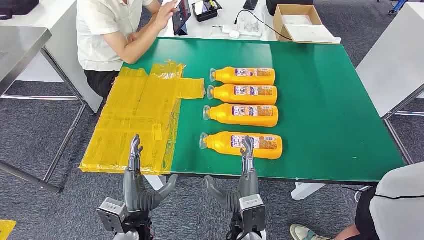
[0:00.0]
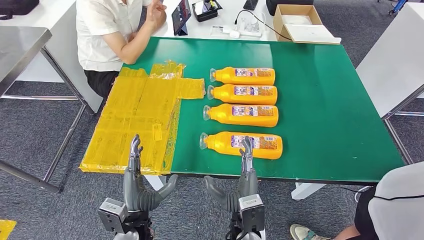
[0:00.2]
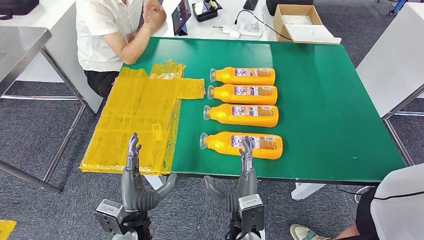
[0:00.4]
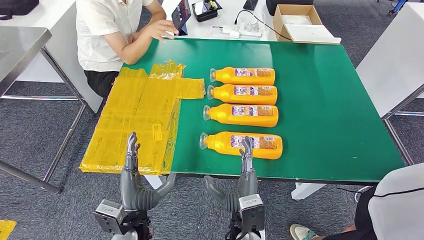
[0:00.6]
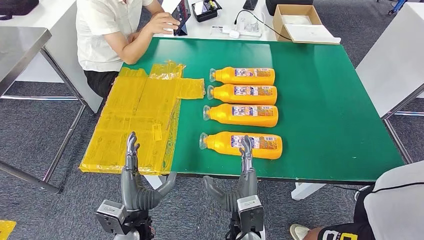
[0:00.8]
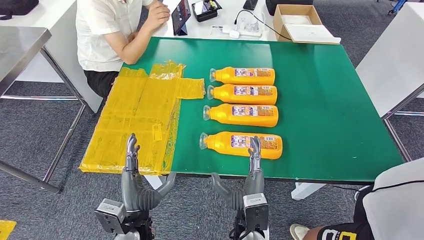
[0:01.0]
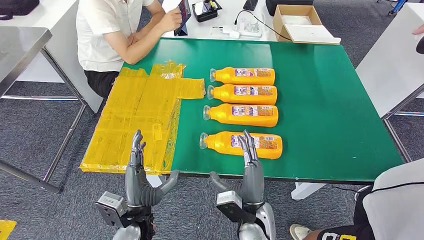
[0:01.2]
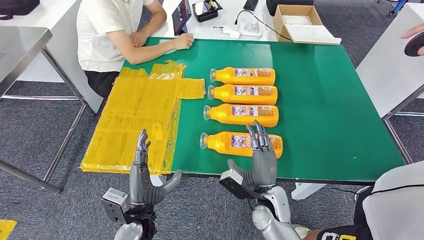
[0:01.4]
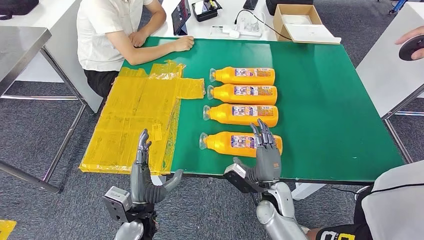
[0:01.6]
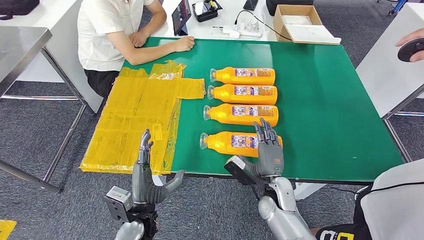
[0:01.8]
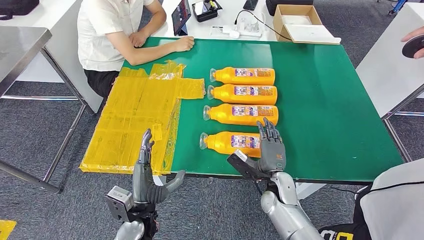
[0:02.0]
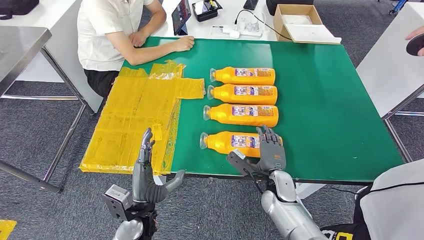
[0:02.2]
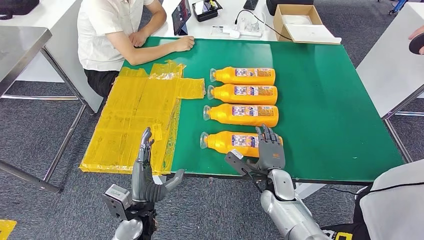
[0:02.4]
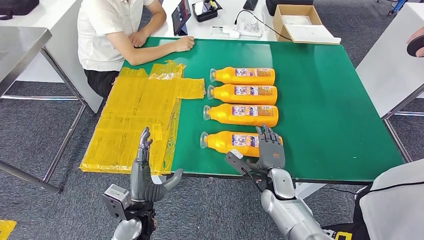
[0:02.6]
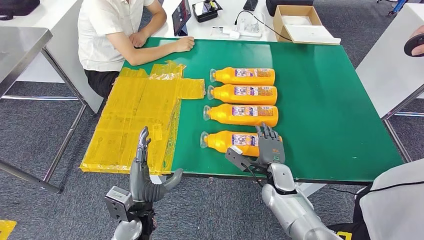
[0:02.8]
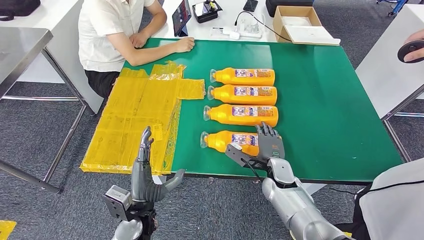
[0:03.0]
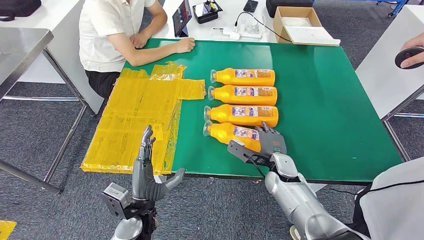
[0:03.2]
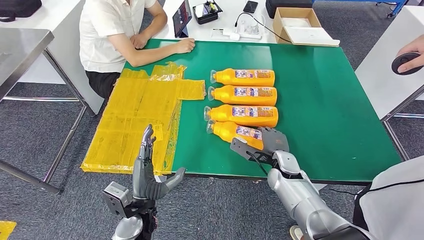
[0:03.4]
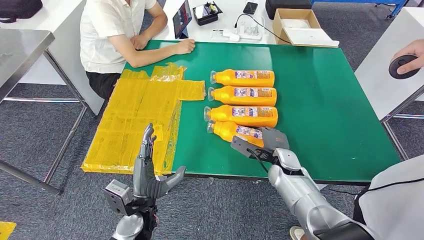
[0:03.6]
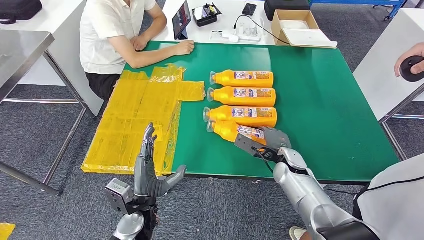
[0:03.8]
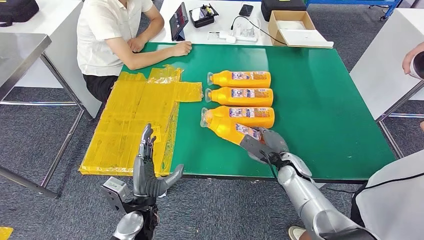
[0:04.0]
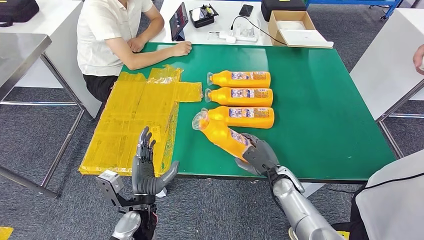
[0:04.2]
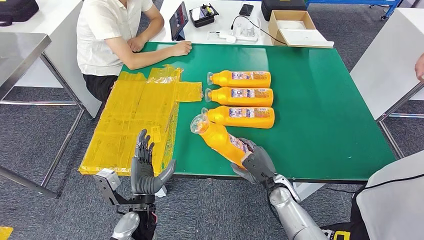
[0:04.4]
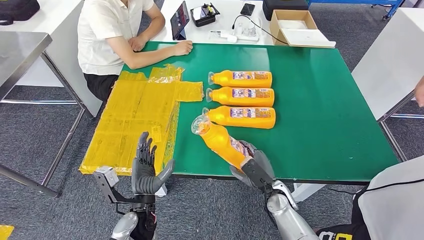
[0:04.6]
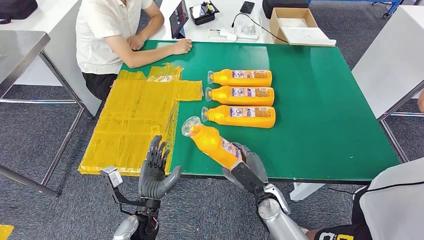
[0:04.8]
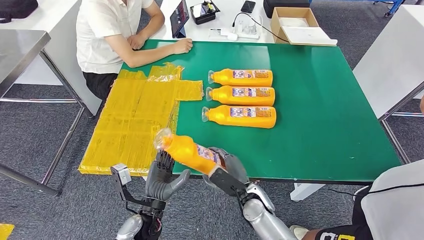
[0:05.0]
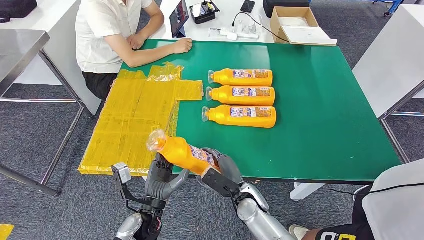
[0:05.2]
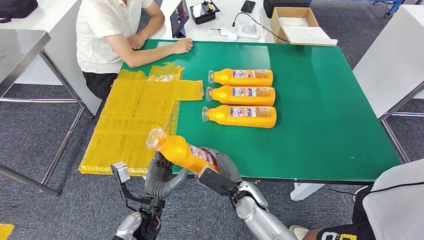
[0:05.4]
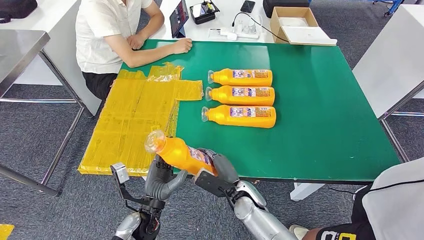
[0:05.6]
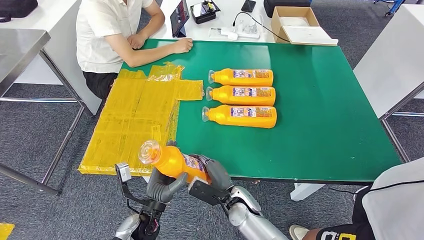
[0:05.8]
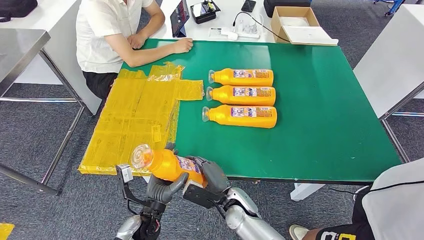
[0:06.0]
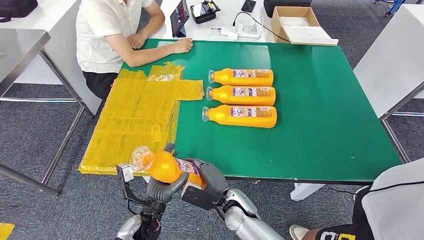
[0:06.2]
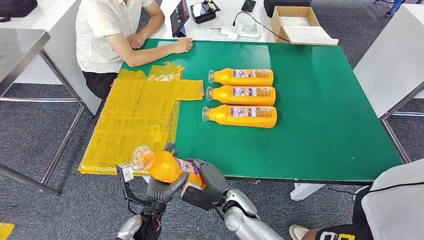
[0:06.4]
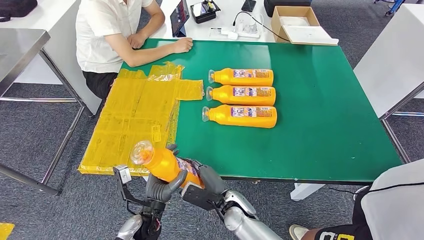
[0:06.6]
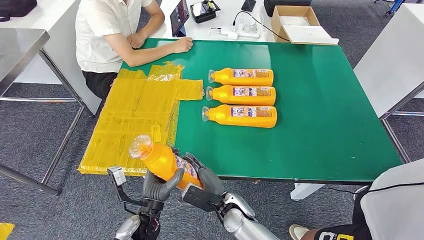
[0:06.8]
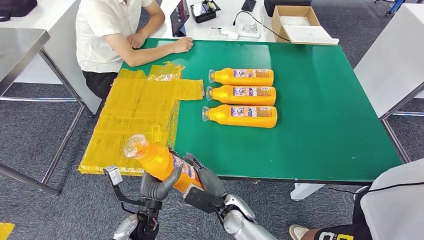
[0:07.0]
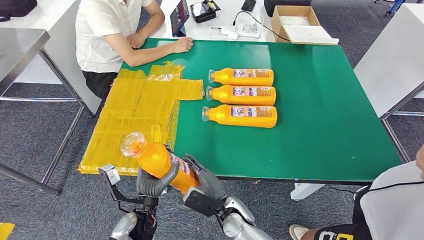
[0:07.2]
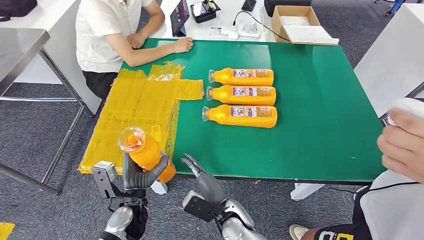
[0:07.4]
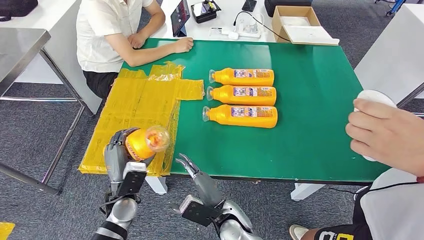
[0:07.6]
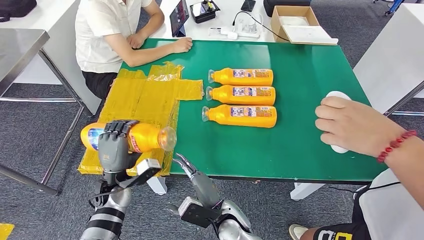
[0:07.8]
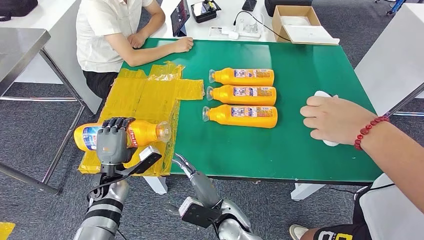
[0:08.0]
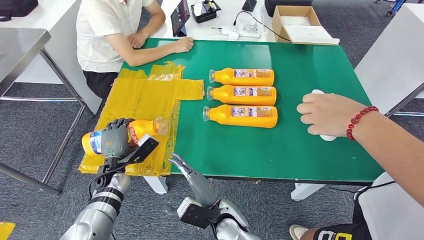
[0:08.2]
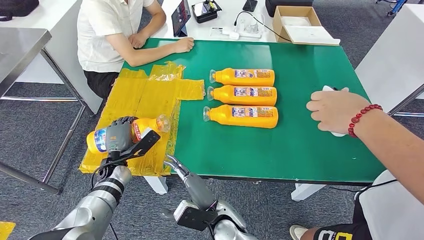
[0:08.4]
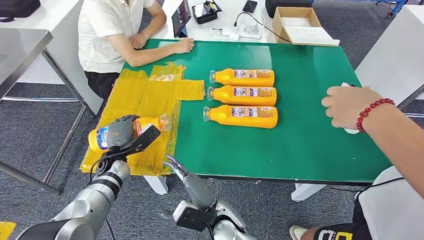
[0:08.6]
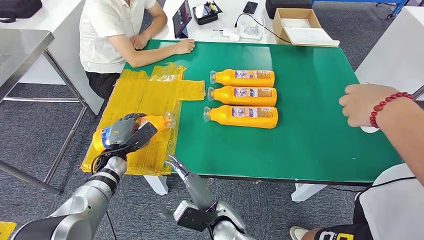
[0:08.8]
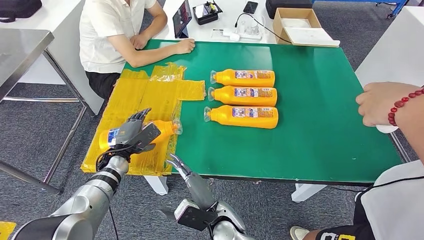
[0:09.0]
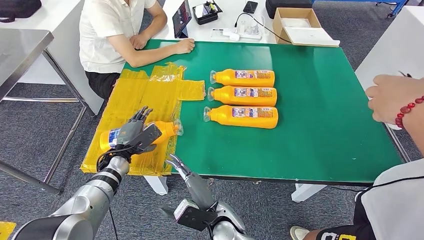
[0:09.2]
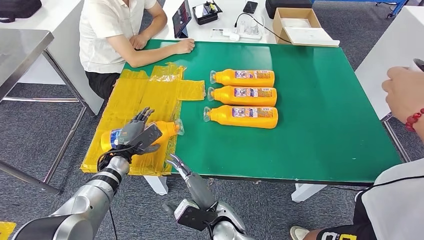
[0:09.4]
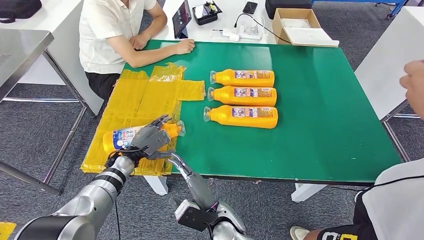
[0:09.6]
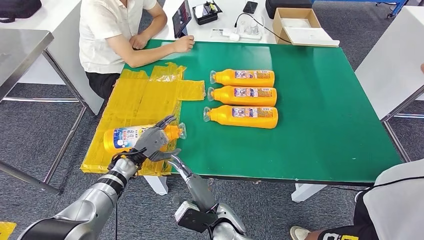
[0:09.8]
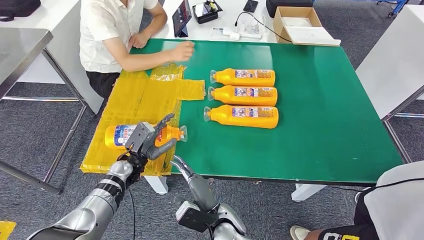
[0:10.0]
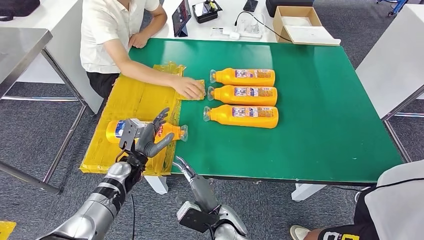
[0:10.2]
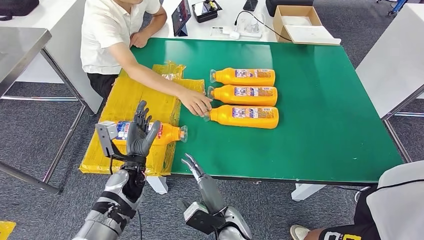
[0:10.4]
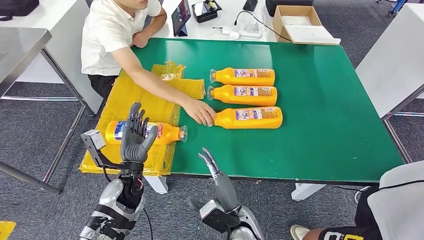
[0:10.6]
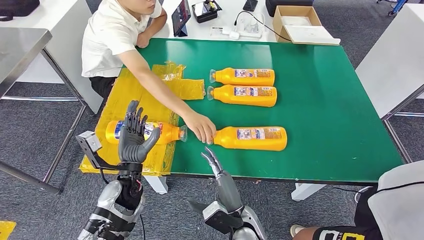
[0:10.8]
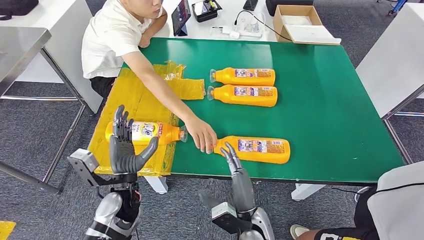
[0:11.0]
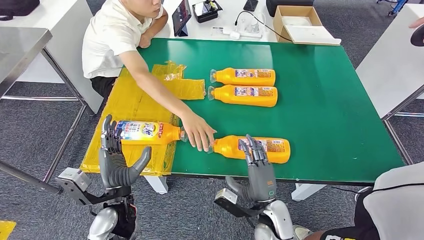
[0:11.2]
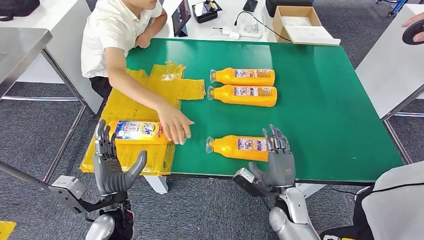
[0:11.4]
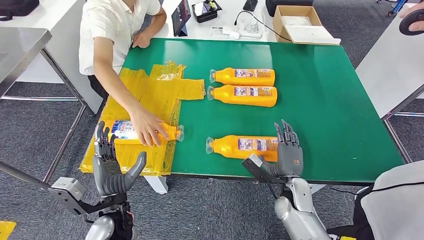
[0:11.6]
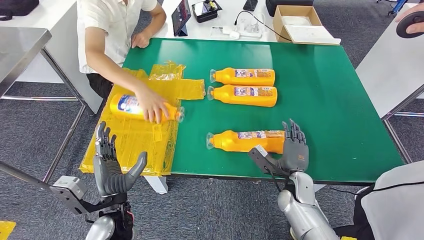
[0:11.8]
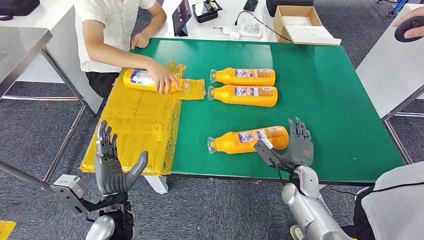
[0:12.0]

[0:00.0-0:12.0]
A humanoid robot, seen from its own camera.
Step, 0:00.0 to 0:04.6: Take the fast-moving consumer goods bottle from the table.
Step, 0:04.8 to 0:10.2: Flip the fast-moving consumer goods bottle to the front side.
0:01.6 to 0:03.0: The right hand shifts about 5 cm forward.
0:06.0 to 0:07.6: The left hand moves to the left, about 5 cm.

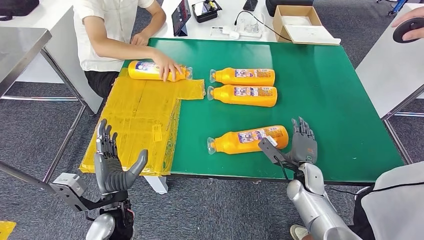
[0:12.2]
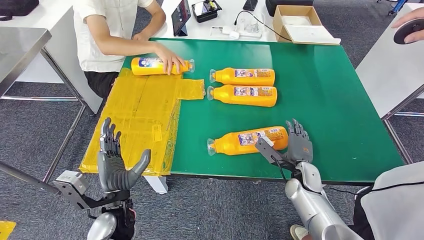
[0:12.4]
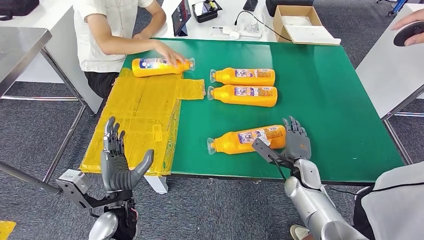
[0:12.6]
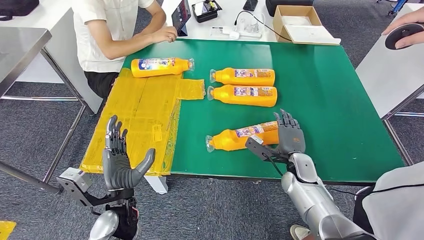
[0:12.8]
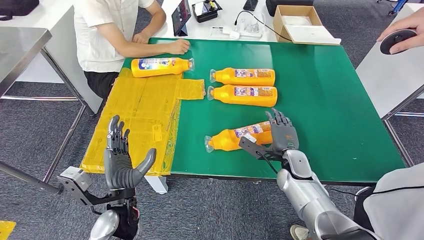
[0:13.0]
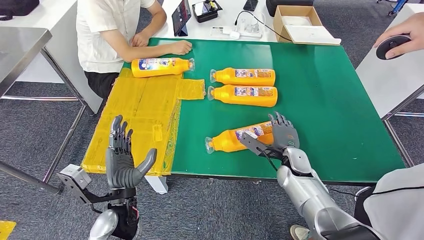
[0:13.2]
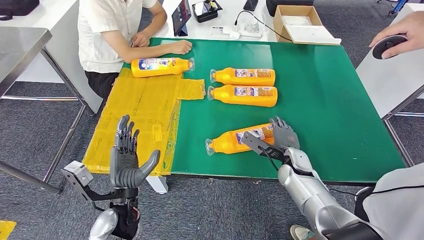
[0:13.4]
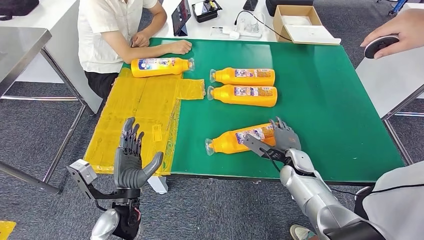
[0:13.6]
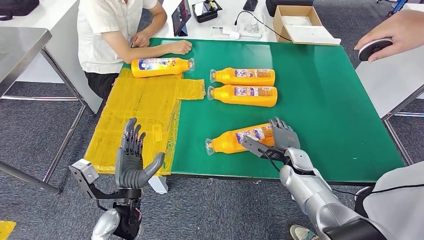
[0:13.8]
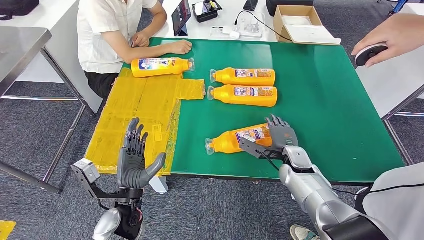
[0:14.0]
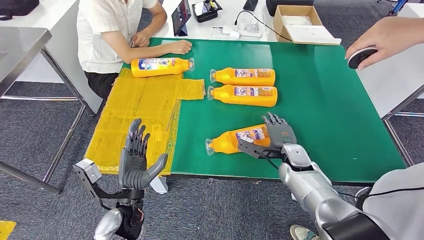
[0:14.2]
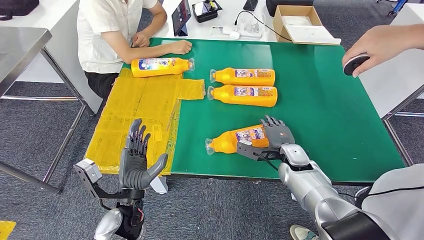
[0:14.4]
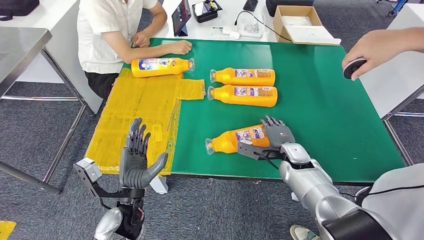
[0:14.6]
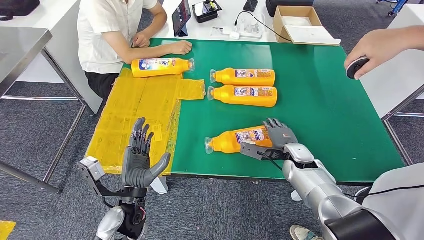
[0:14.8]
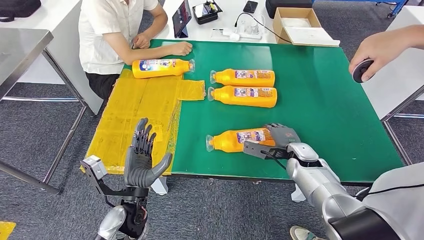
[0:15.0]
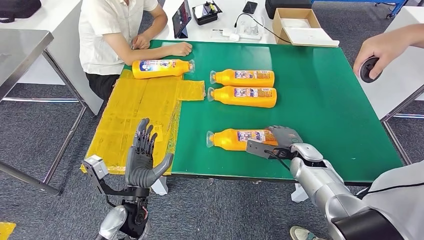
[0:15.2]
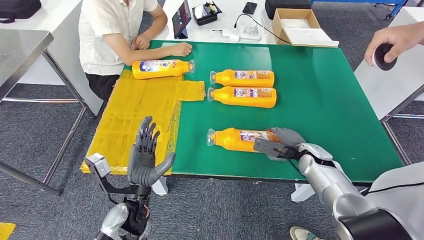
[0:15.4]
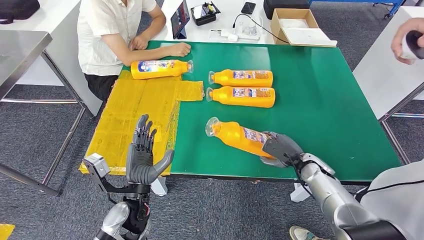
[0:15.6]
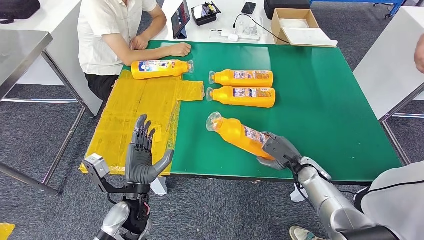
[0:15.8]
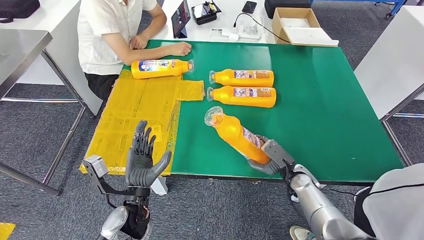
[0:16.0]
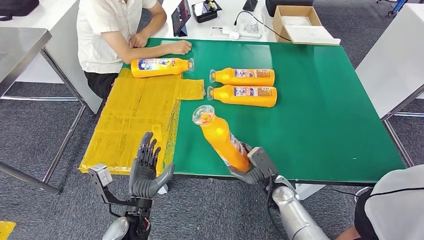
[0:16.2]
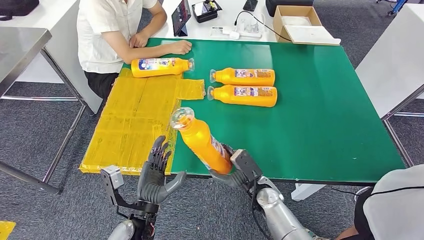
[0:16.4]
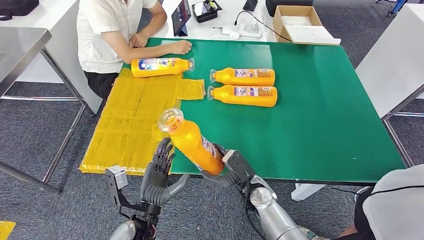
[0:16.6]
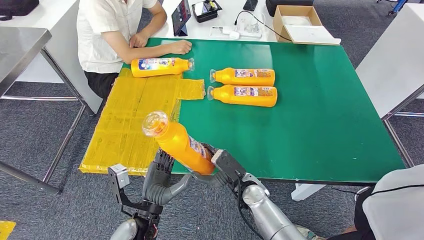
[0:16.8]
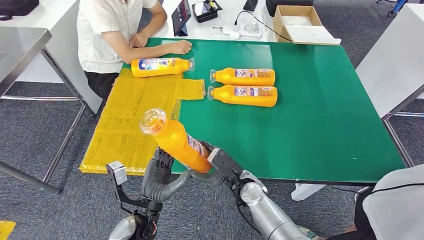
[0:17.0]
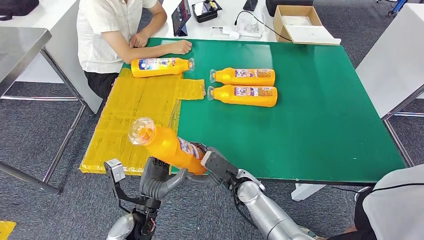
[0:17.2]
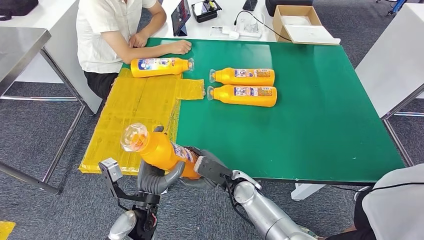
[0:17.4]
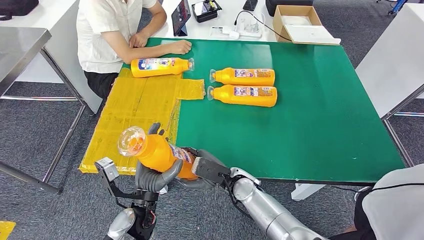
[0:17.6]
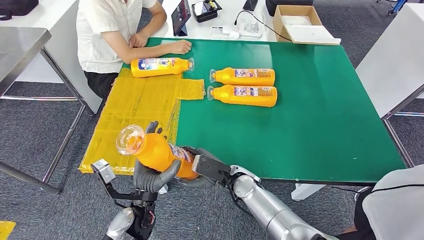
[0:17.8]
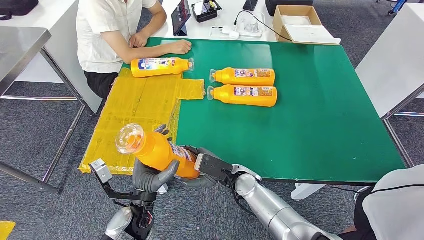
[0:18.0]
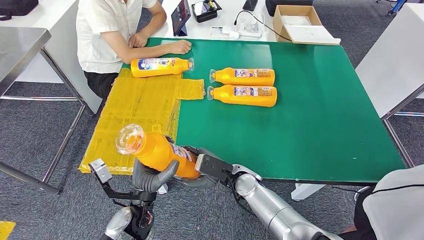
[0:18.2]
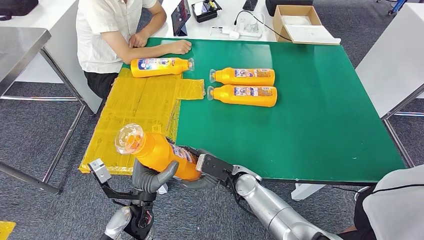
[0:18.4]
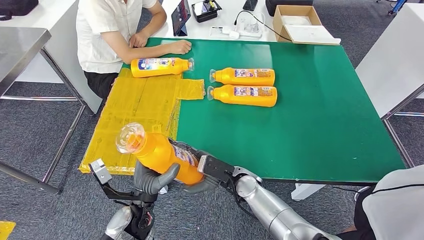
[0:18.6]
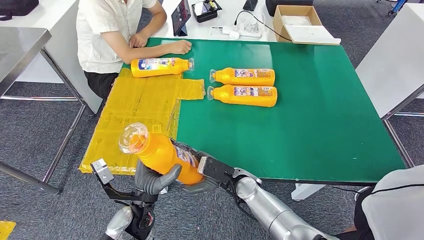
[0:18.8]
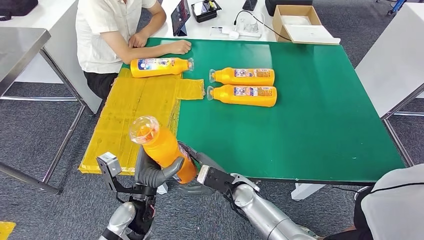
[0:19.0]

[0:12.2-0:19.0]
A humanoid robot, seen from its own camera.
Step, 0:12.2 to 0:16.0: Pick up the fast-moving consumer goods bottle from the table.
0:13.6 to 0:15.0: The hands move only a little.
0:16.2 to 0:17.6: The right hand moves to the left, approximately 10 cm.
0:17.6 to 0:19.0: There are only small adjustments of the hands.
